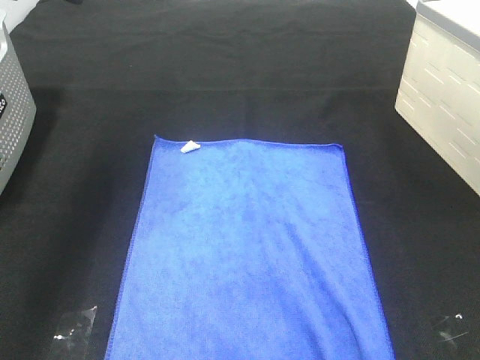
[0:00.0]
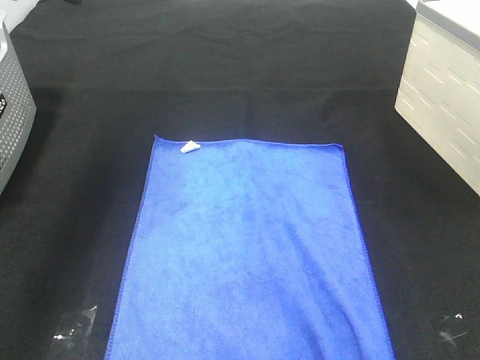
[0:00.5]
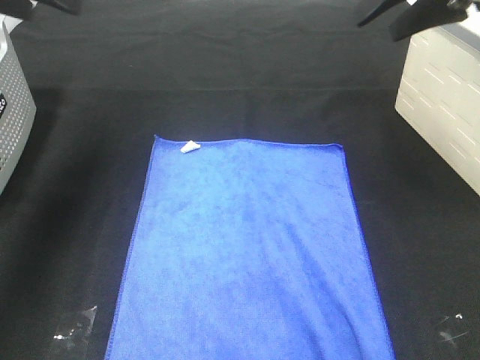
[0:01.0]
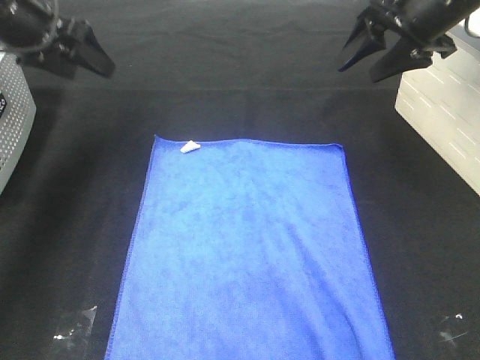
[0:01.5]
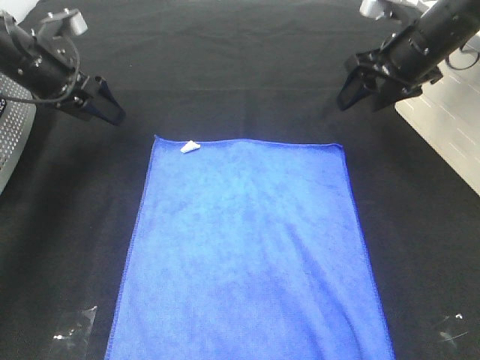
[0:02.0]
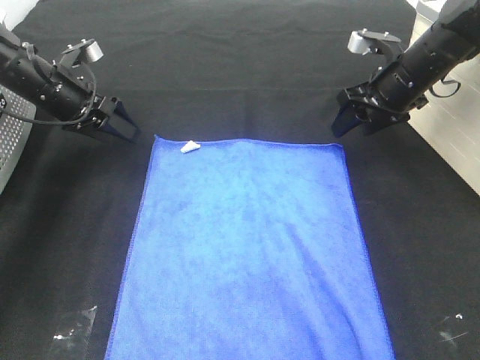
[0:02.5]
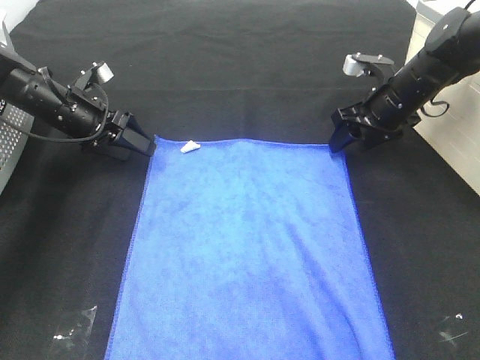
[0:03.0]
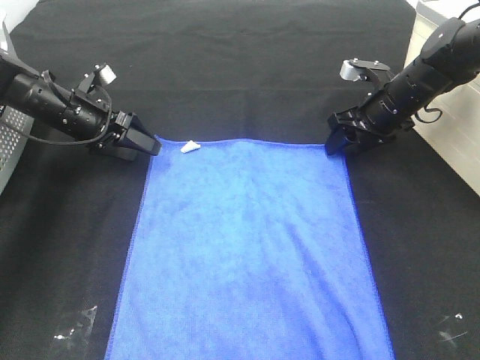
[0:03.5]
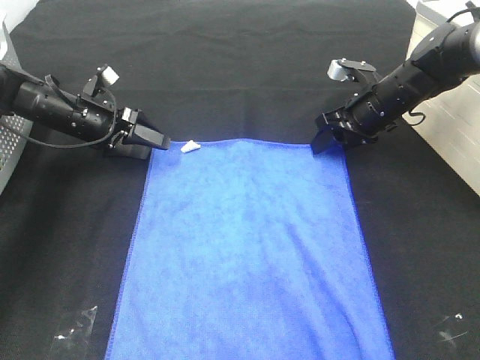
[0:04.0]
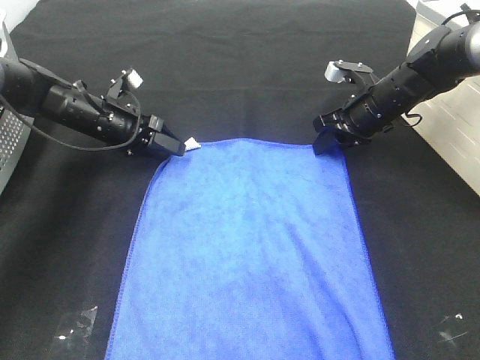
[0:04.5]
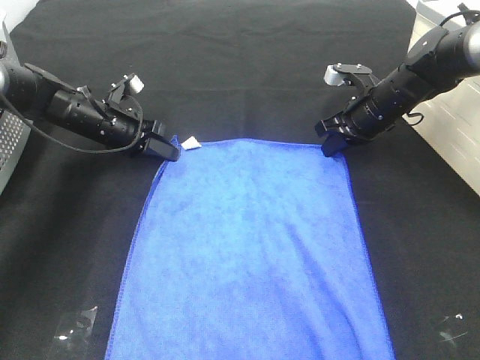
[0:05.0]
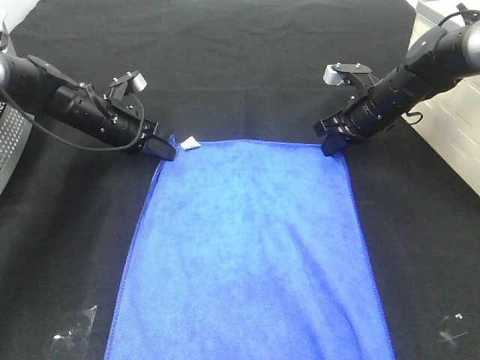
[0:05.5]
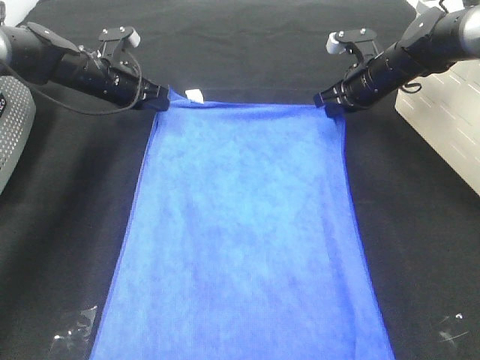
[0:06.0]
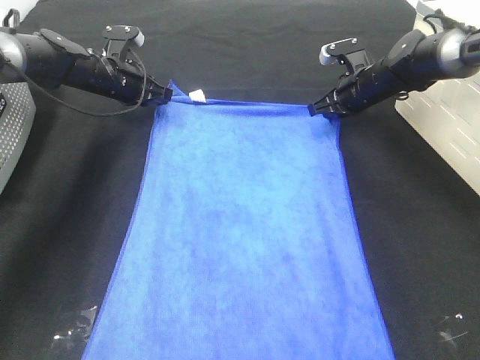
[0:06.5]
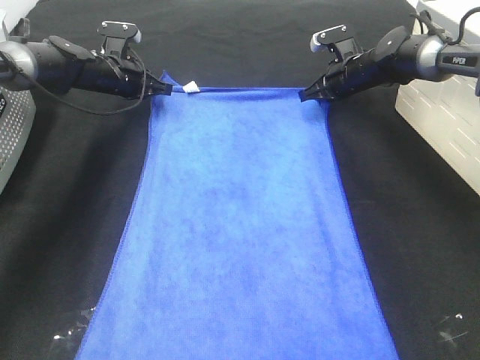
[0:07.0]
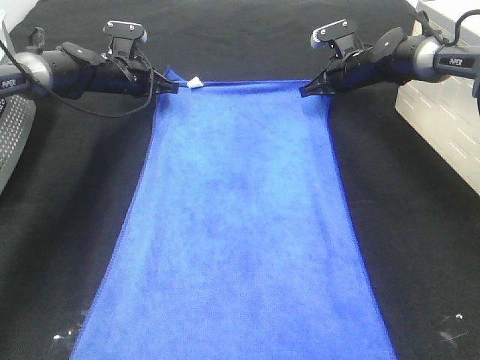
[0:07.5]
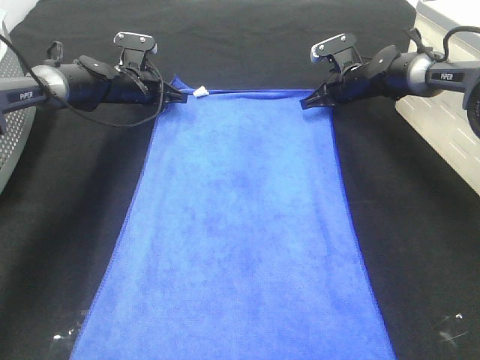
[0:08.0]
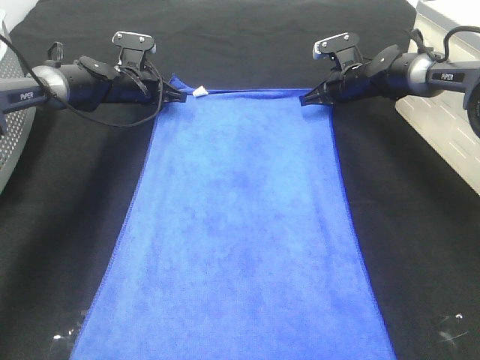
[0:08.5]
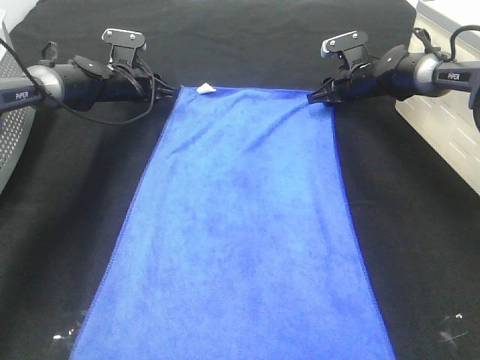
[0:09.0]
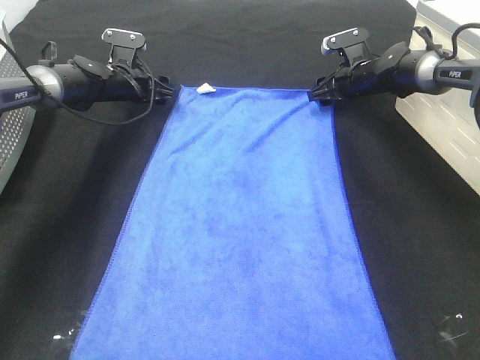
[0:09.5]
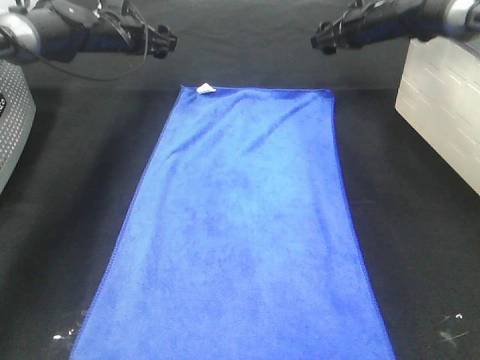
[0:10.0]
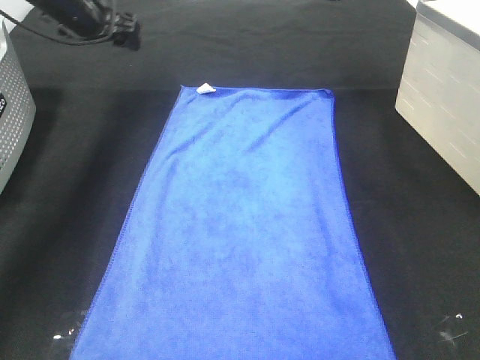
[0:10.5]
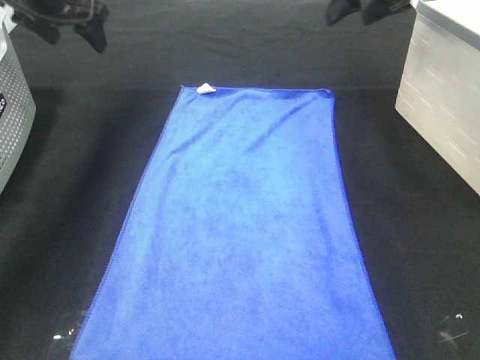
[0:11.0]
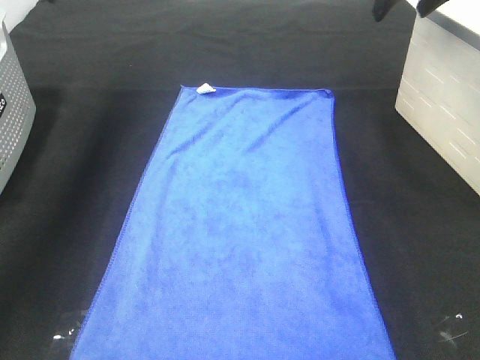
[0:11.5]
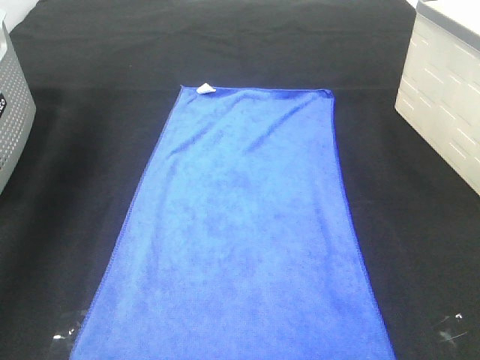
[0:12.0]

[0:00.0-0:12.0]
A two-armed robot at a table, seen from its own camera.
Task of the whole recording: Remove the towel and place it.
0.0 to 2.0 s: Both grippers travel together downward and forward, roughly 30 cm.
2.0 to 4.0 s: The grippers both shift downward by roughly 10 cm.
4.0 to 6.0 s: The right gripper closes, while the left gripper is displaced forward by some 5 cm, and closes up.
6.0 to 8.0 s: The right gripper moves forward and downward, approximately 10 cm, while the left gripper moves forward, about 5 cm.
8.0 to 10.0 s: The grippers both shift upward by roughly 10 cm. The left gripper opens. The right gripper opens up.
10.0 to 12.0 s: The right gripper moves upward and backward, about 25 cm. The left gripper travels upward, backward and to the left by about 30 cm.

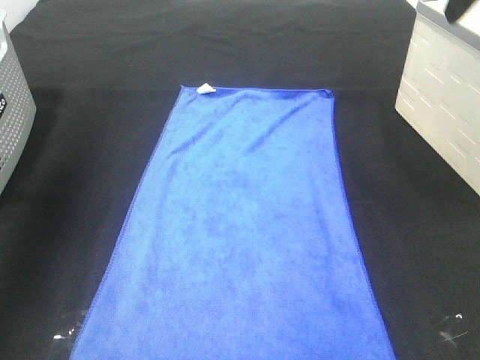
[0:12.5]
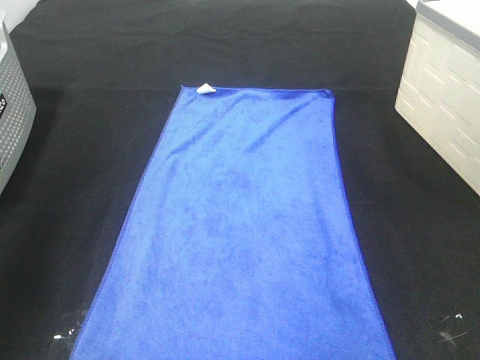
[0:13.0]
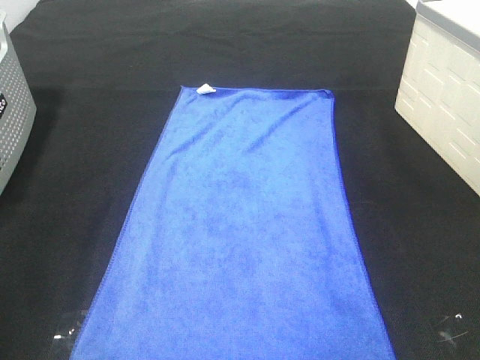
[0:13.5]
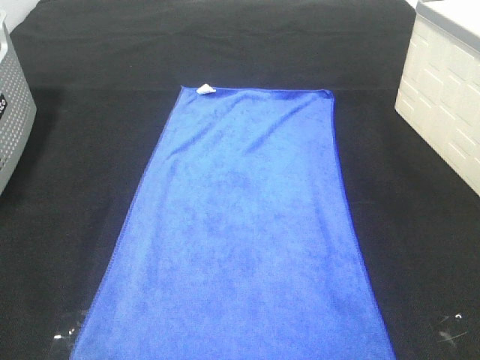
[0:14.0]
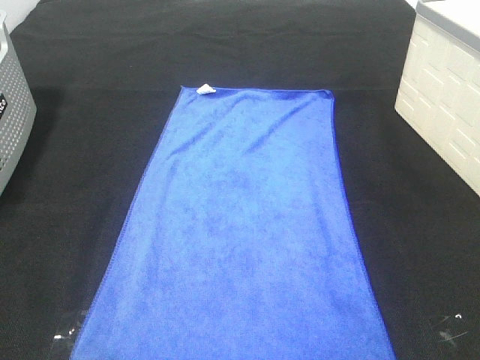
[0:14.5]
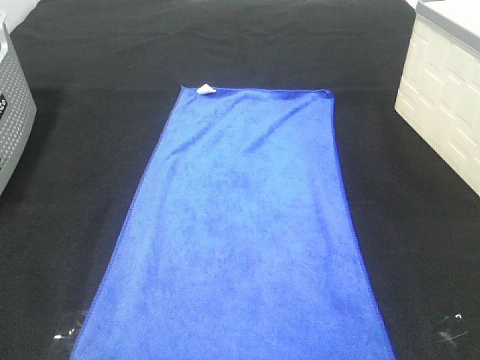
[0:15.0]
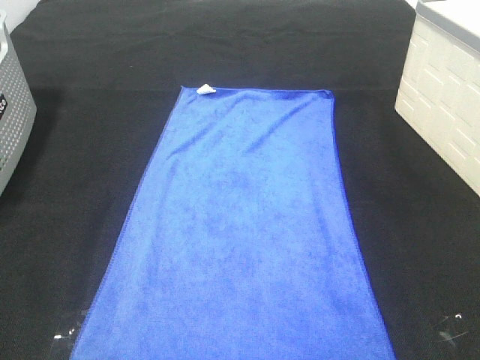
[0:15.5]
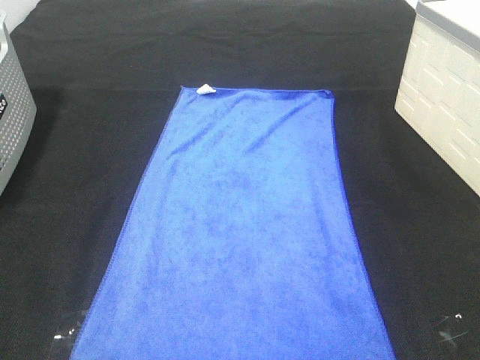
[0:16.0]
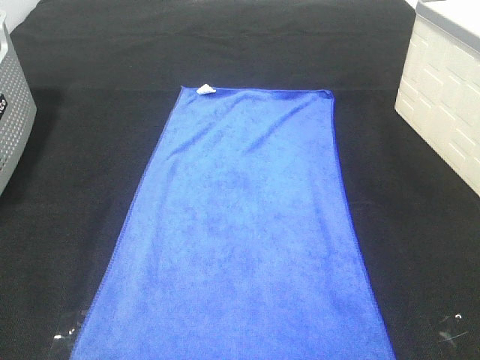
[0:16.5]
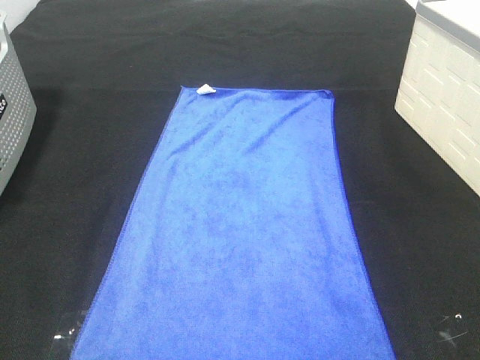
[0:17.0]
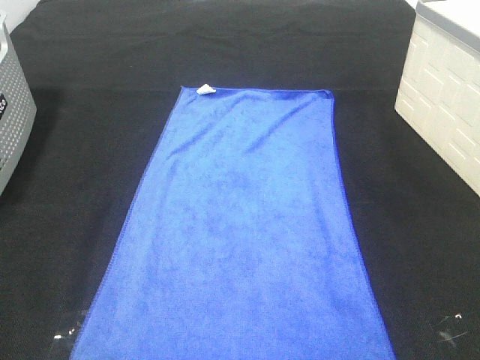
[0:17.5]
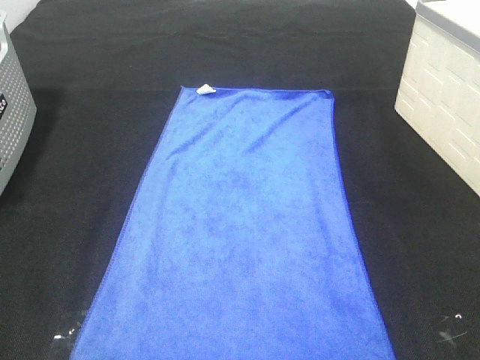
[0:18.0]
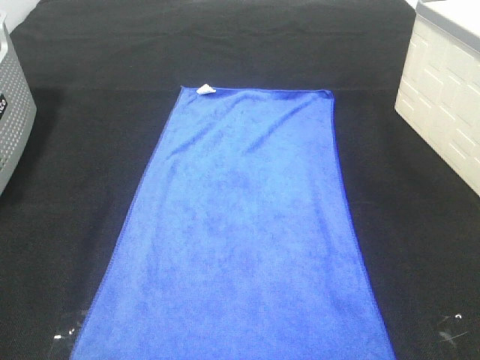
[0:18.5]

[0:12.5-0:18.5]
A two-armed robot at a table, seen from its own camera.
Task of the whole recording: Remove the towel and place it.
12.5 to 14.5 s: The grippers both shift backward by some 30 cm.
16.5 to 18.5 s: Both grippers stay about where they are.

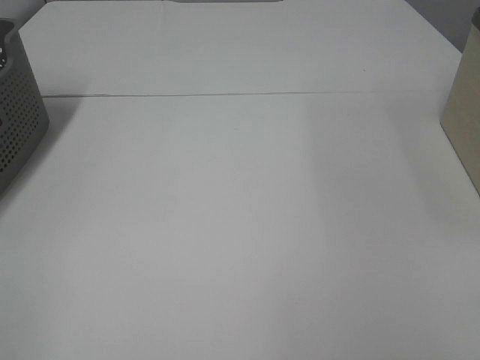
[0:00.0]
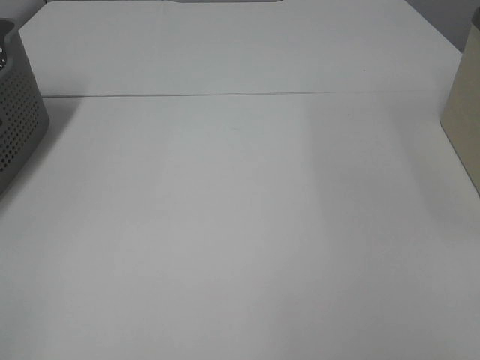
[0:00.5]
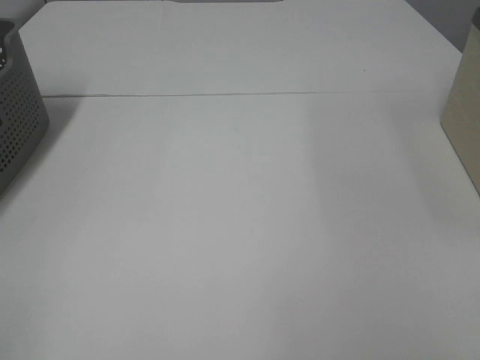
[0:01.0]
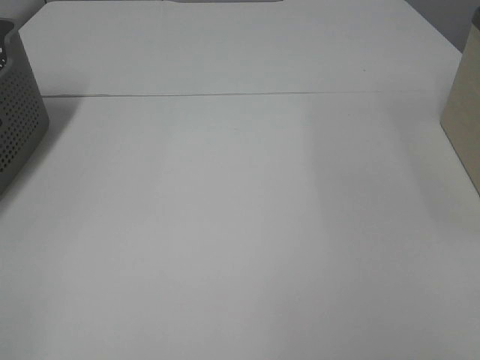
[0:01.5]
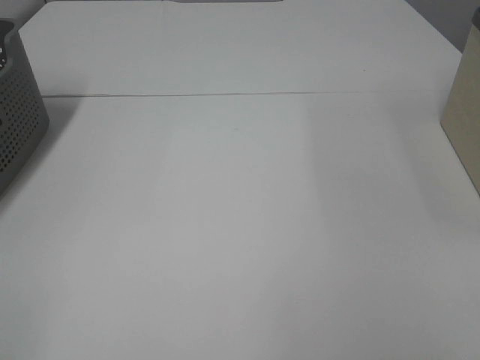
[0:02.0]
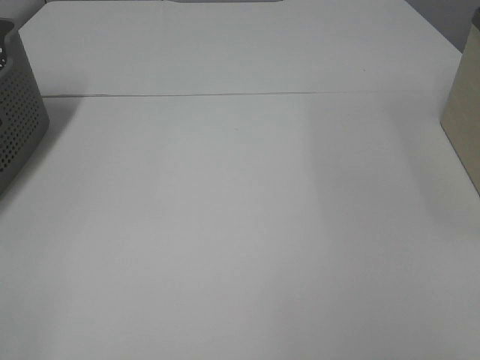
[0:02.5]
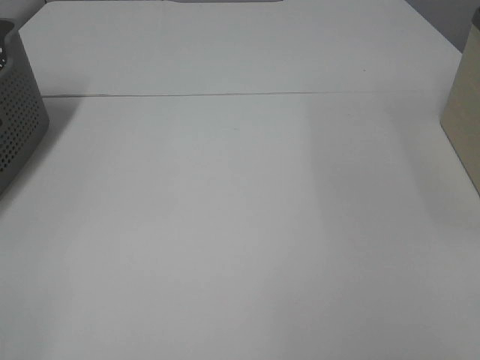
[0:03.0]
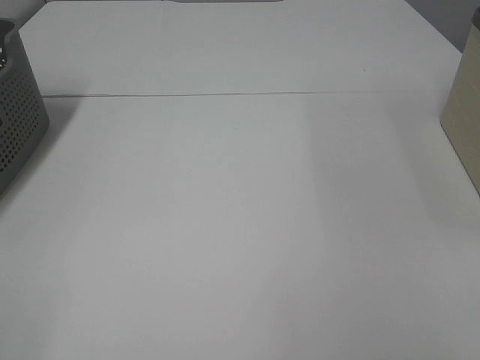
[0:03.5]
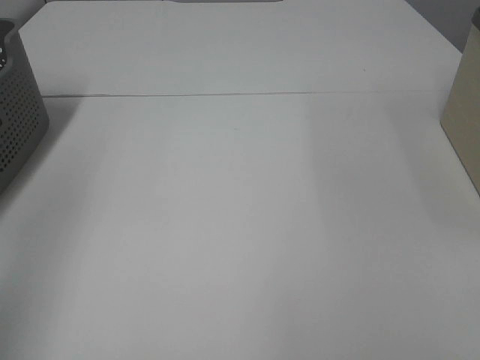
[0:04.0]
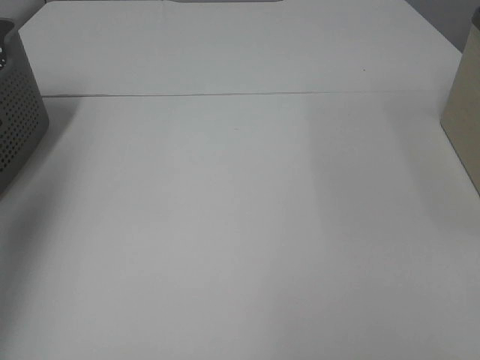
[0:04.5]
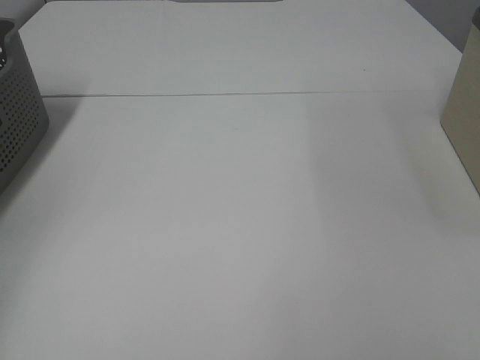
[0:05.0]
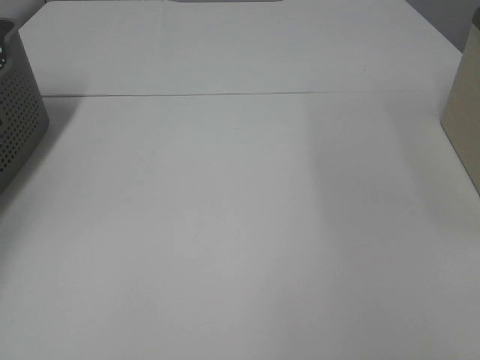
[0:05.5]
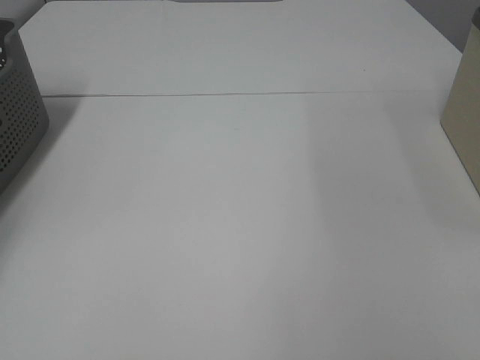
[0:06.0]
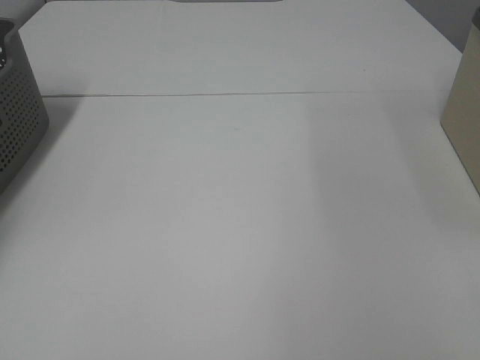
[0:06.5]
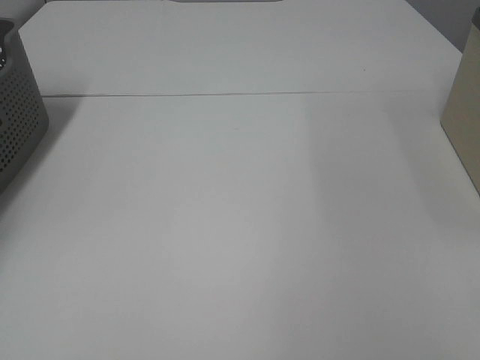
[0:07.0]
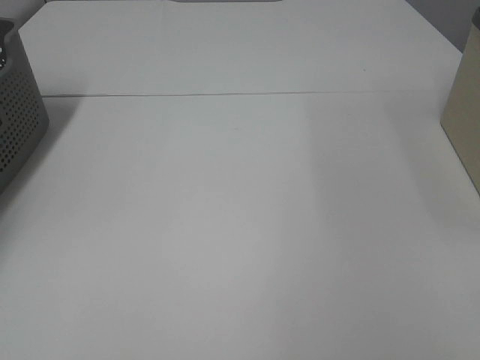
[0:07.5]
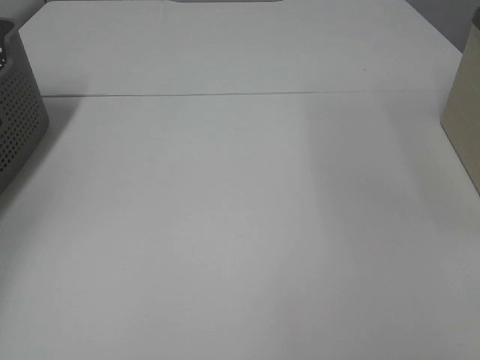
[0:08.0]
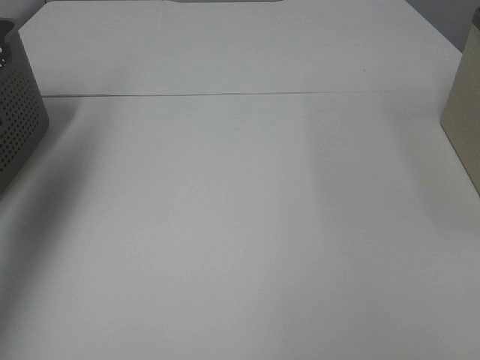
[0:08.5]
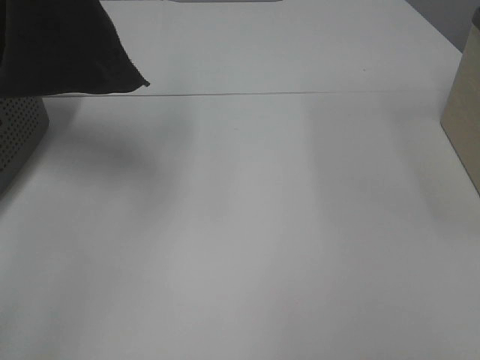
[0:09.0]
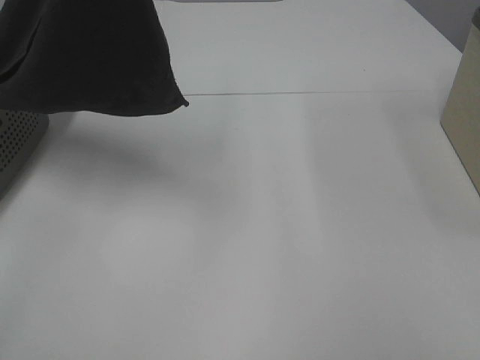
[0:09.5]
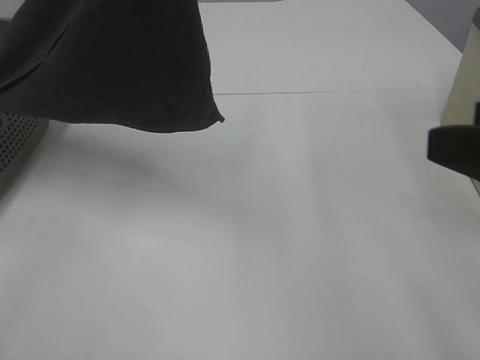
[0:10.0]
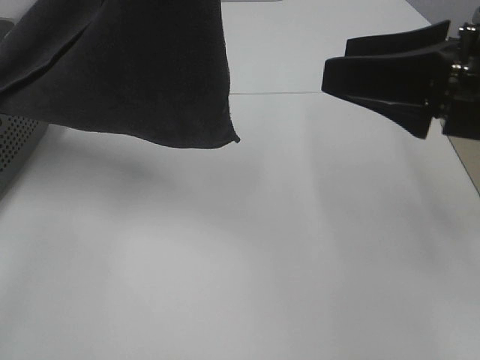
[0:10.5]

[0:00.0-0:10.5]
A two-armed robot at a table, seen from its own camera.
Task of the whole recording: Remove the towel and place it.
2.0 to 4.0 s: The left gripper is displaced upward and forward by about 15 cm.
4.0 to 6.5 s: The left gripper heads forward, downward and to the left, covering approximately 40 cm, and closes up.
6.5 to 8.5 s: The left gripper shifts some 30 cm upward and to the right, and closes.
8.5 to 10.5 s: The left gripper moves to the right, some 30 cm; the right gripper moves forward, about 20 cm.
